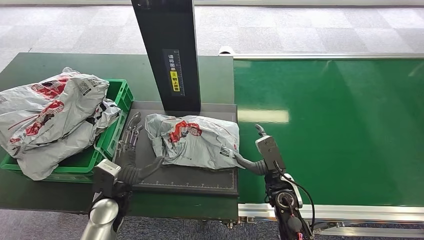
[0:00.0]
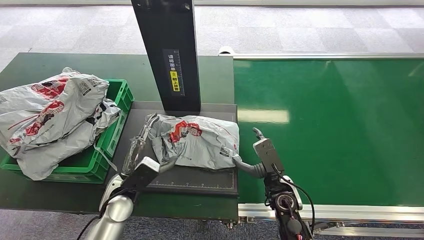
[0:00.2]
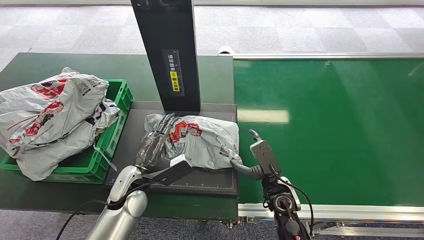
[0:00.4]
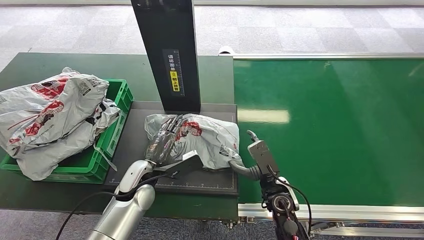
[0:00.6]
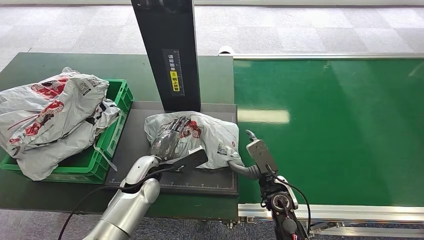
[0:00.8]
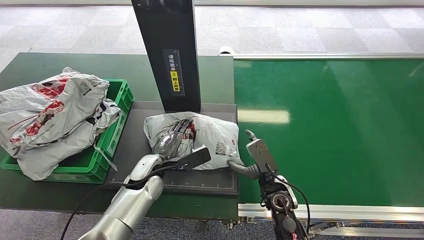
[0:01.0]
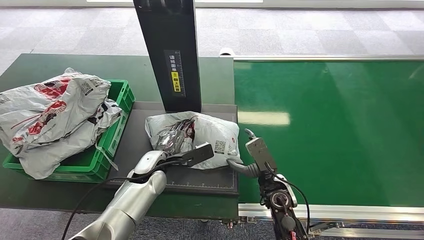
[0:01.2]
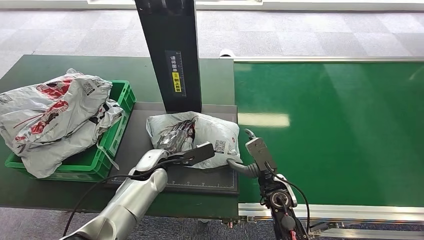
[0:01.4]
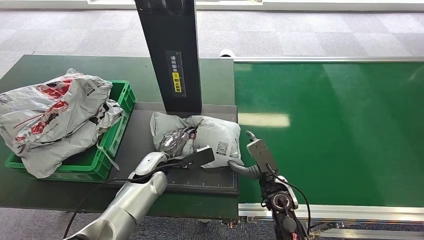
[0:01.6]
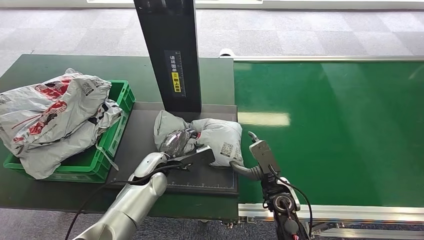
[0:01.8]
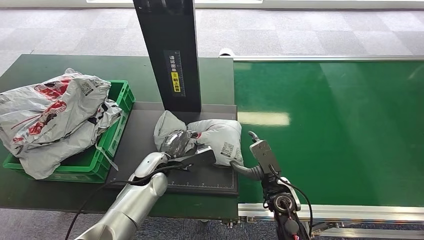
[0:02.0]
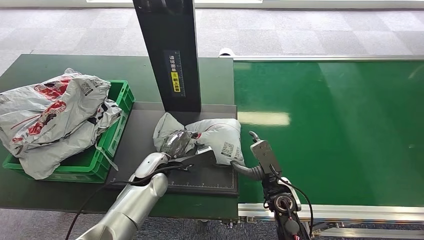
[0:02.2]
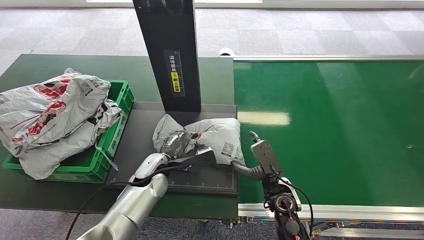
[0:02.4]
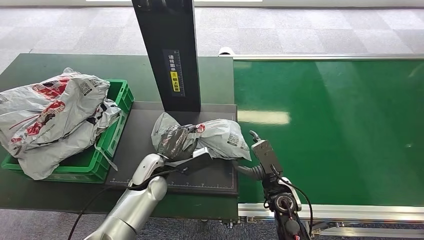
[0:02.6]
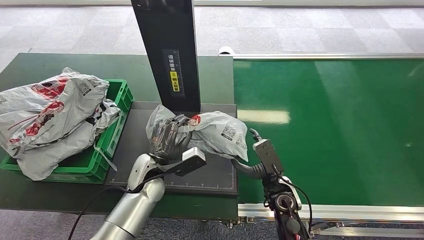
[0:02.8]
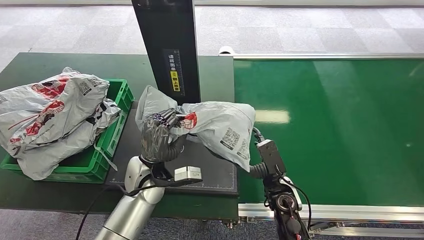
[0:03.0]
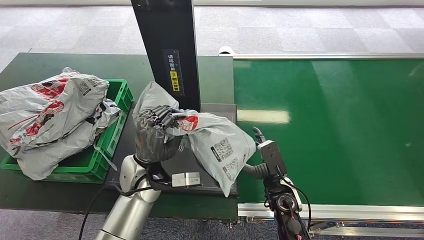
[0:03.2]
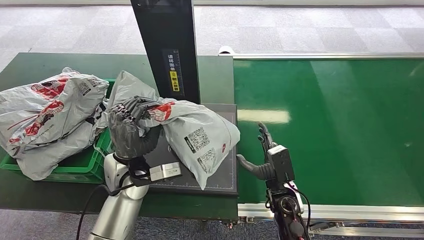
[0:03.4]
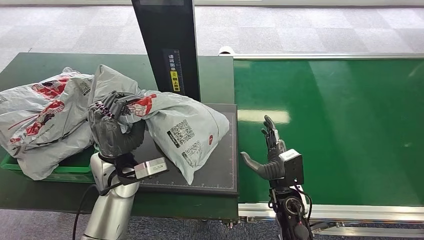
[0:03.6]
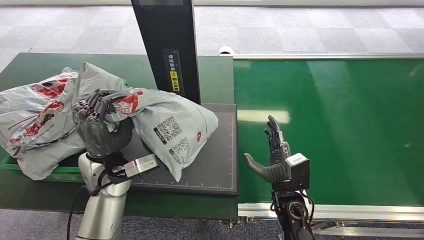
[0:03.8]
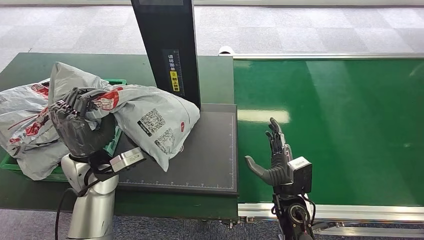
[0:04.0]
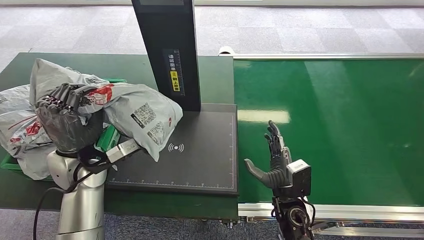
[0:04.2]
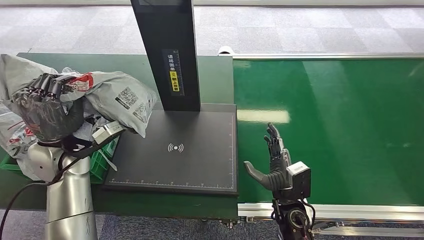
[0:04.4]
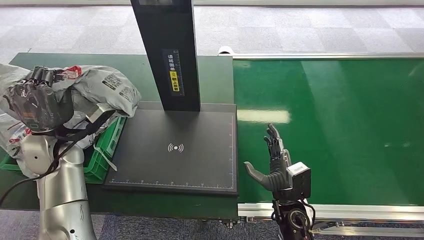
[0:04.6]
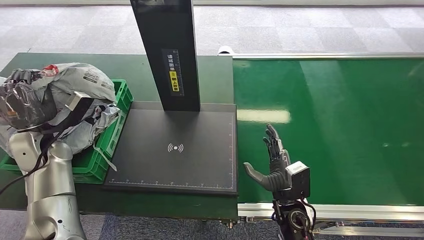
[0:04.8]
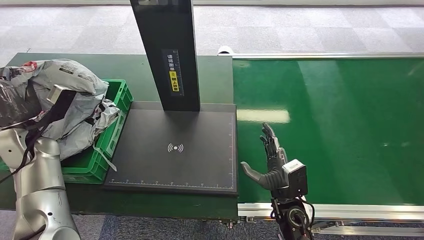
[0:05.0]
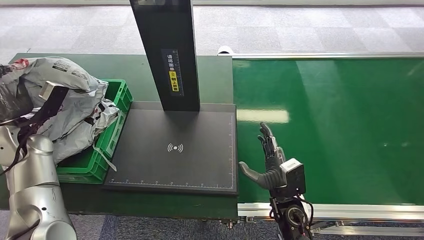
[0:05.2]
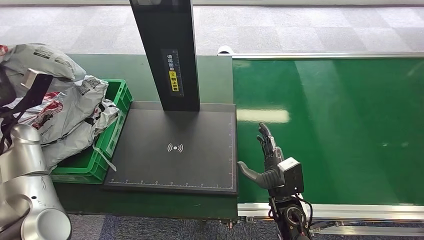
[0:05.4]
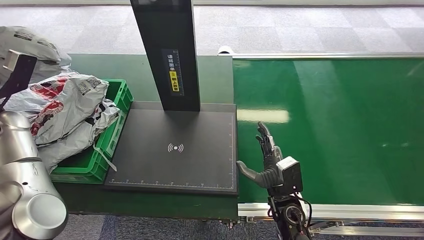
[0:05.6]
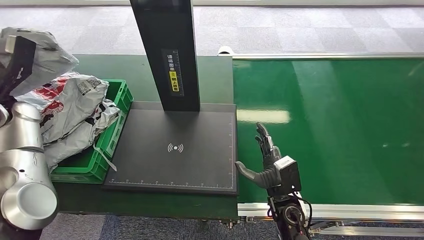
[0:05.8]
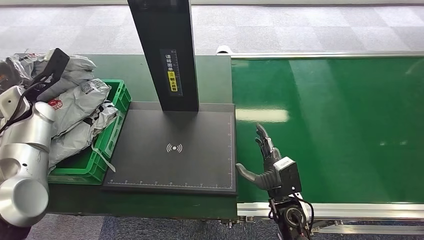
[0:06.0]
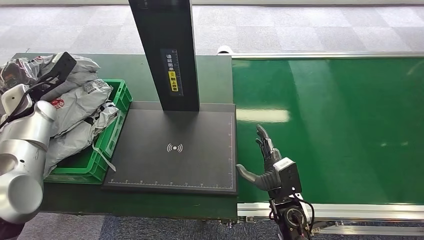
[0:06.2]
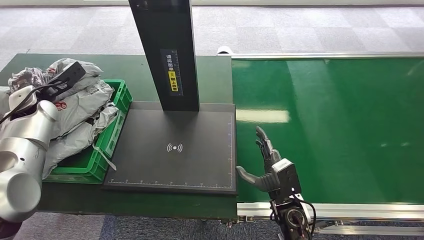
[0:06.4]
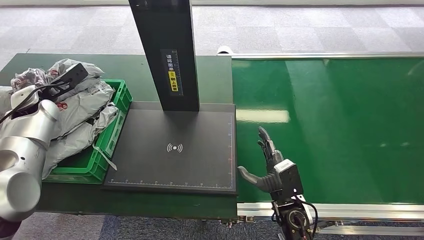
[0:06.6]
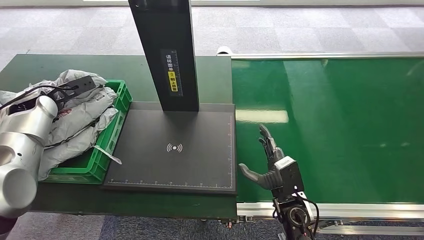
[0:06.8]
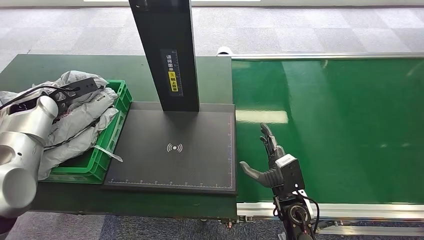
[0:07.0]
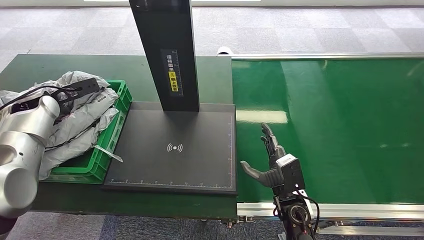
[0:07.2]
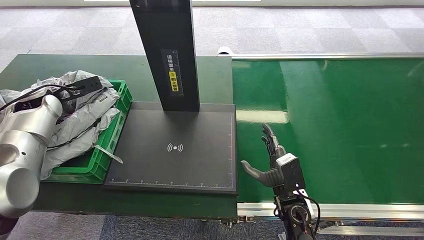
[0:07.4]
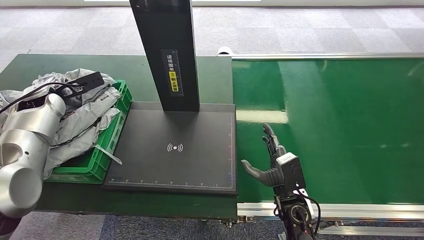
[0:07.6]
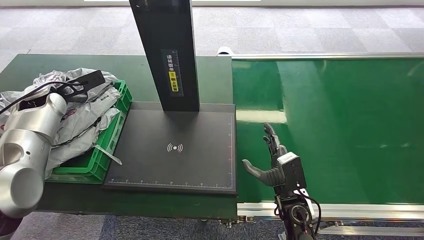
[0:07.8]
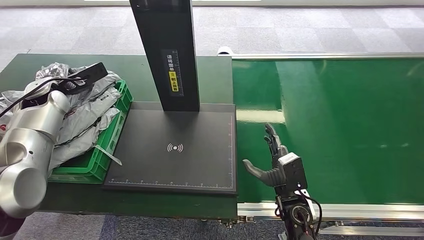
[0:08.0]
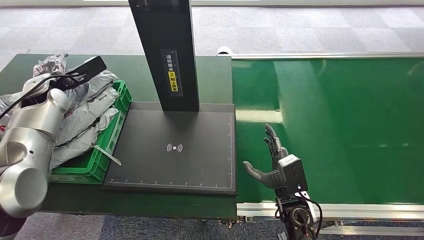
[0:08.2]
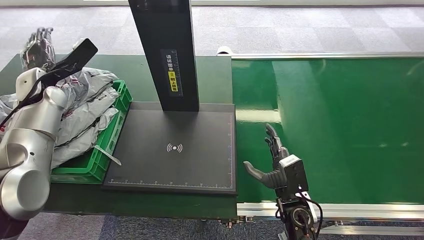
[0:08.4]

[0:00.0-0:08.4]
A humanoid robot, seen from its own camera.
Step, 0:00.2 to 0:03.8: Pick up the package from the inbound machine.
Step, 0:04.0 to 0:08.4: Place the package into the parcel locker.
0:07.0 to 0:08.4: The left hand shifts by approximately 5 cm.
